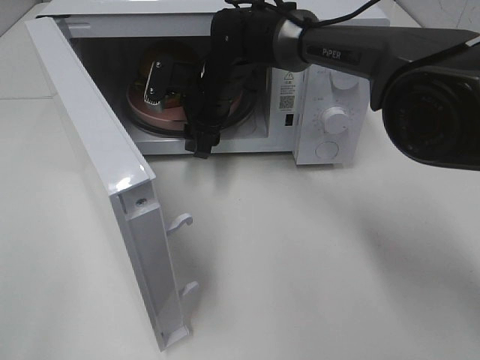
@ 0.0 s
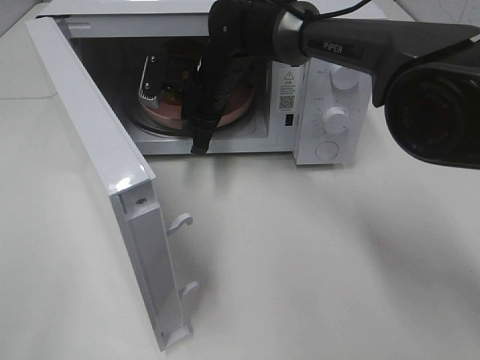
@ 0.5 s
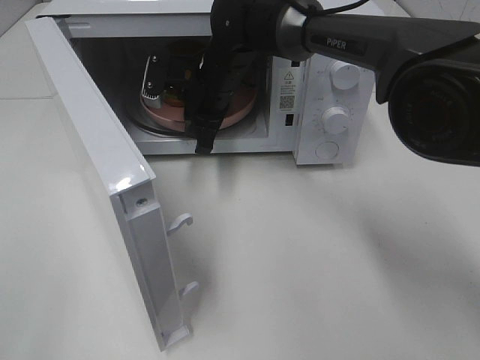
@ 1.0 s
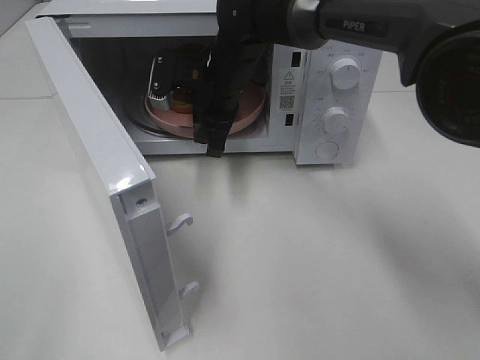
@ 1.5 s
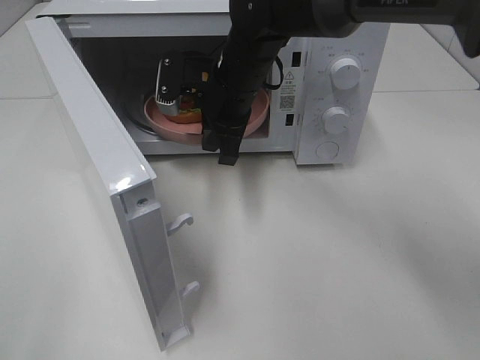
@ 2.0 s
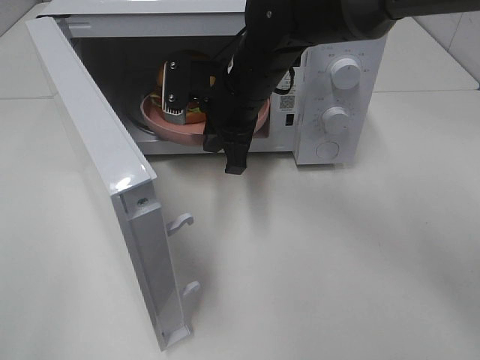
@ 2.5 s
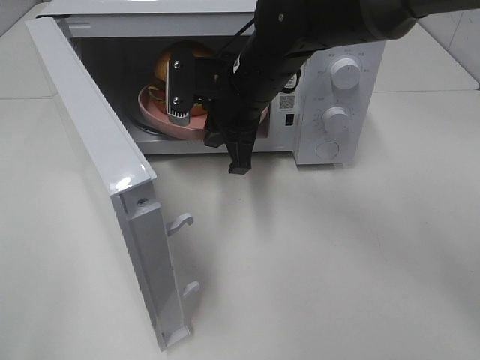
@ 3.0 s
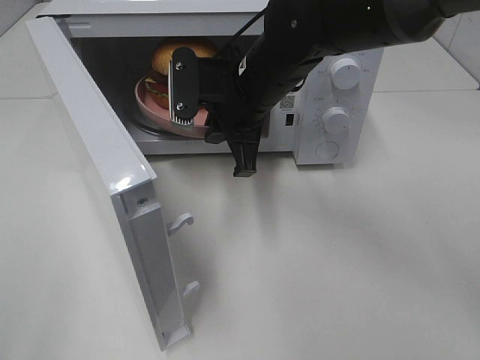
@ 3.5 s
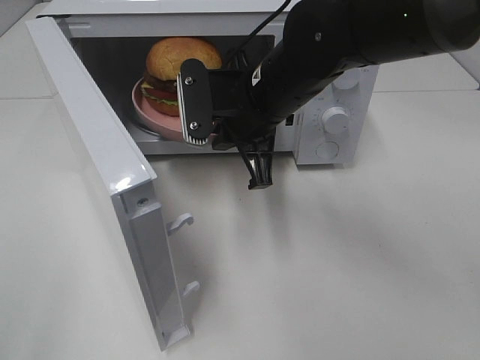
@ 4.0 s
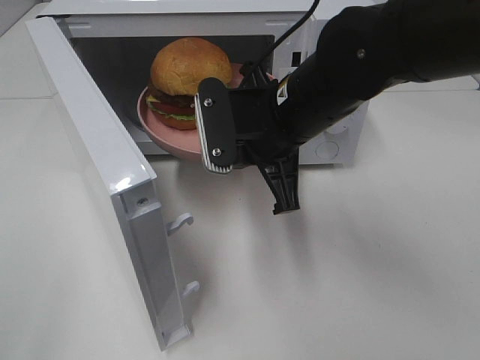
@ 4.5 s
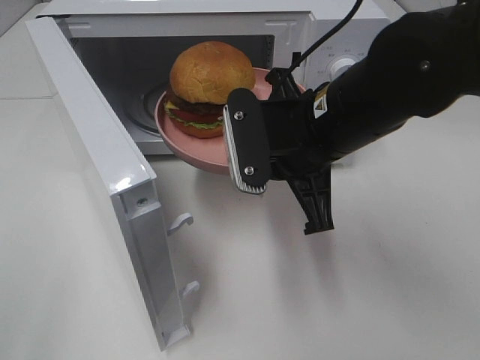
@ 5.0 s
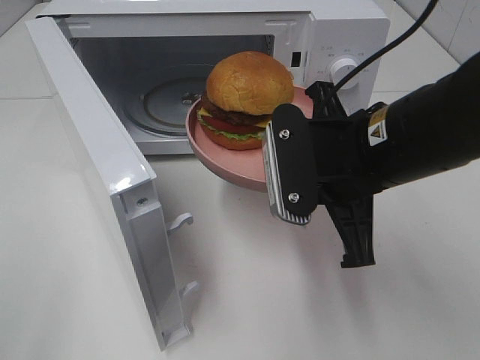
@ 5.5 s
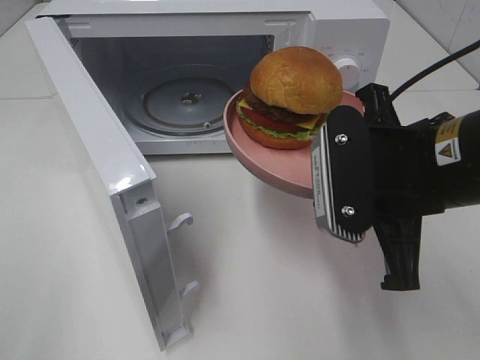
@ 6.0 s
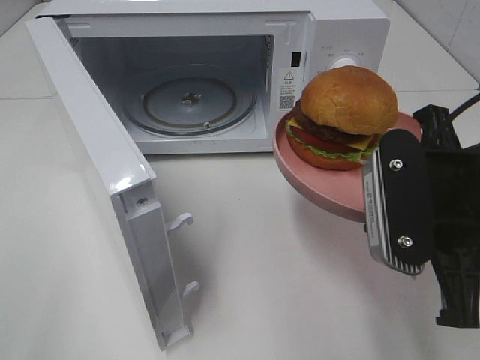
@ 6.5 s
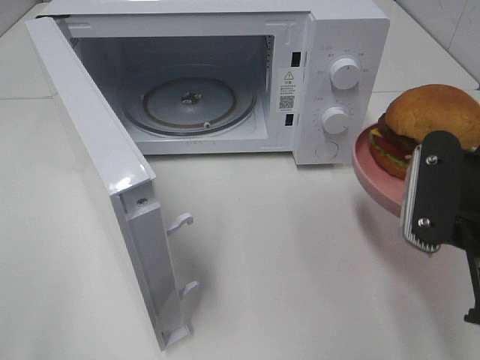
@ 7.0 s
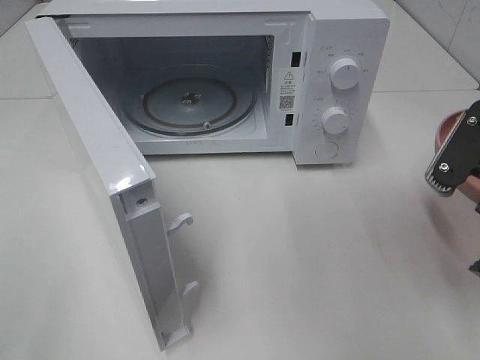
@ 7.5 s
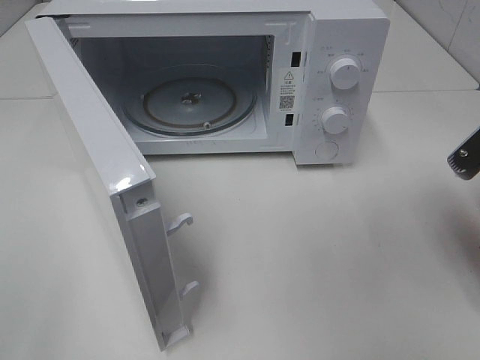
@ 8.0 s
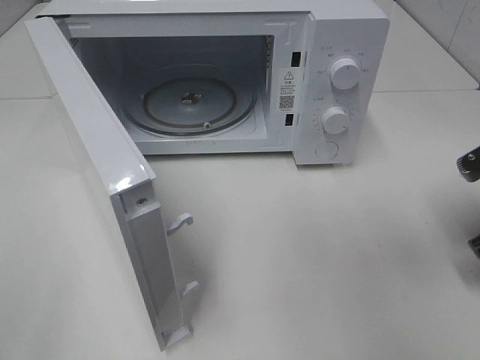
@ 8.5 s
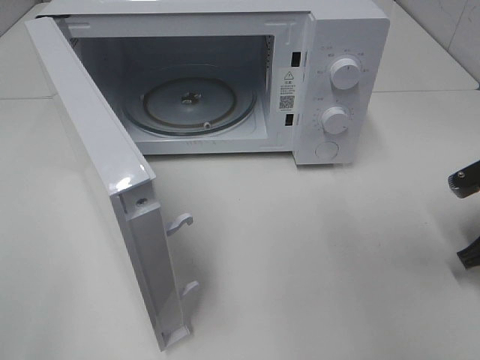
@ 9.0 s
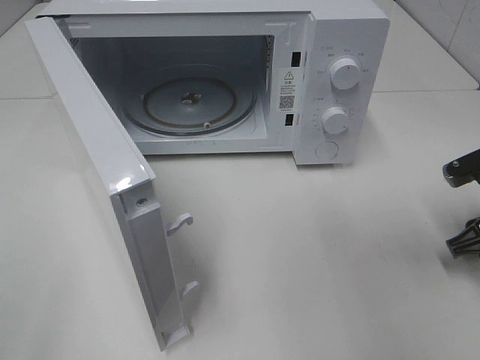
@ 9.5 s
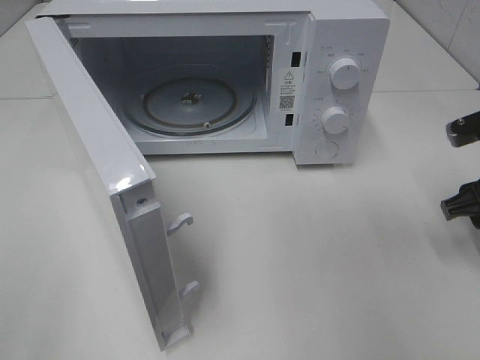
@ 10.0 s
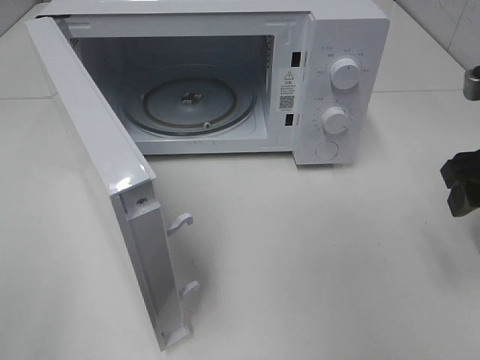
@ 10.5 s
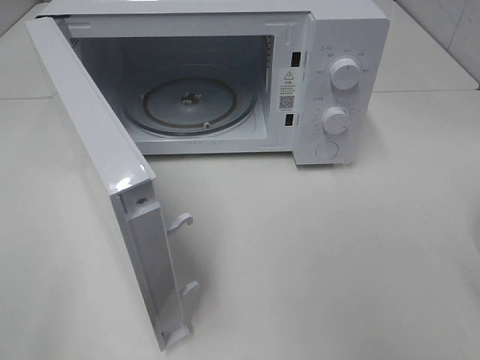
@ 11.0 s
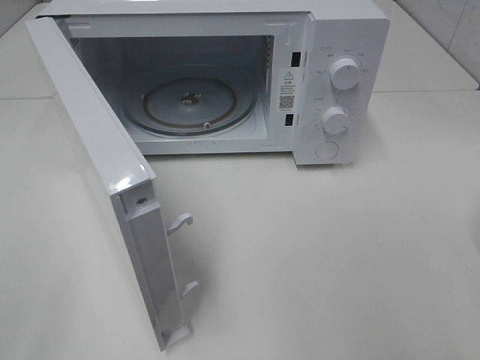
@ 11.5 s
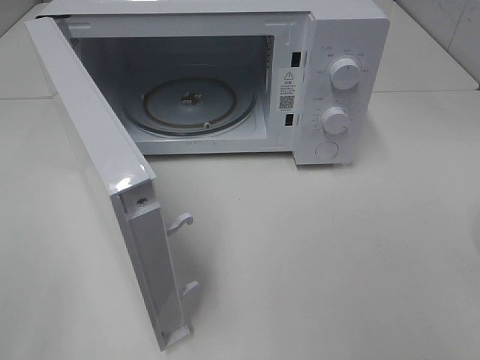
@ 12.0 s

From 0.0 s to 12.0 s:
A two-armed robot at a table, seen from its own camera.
Task of the whole recording: Heat the burger.
Step, from 1.0 s to 9.0 s: Right hand: place the plate on the table.
From 0.0 s to 2.0 s: The right gripper heads backward, covering roughly 5 cm, and closes up.
From 2.0 s to 4.0 s: The right gripper moves backward, approximately 10 cm.
From 4.0 s to 6.0 s: The right gripper travels backward and to the right by some 15 cm.
From 6.0 s to 8.0 s: The right gripper moves to the right, about 15 cm.
From 8.0 s to 10.0 s: The right gripper shifts about 5 cm forward, and opens its fingers.
From 10.0 s to 12.0 s: The right gripper shifts roughly 25 cm backward and upward.

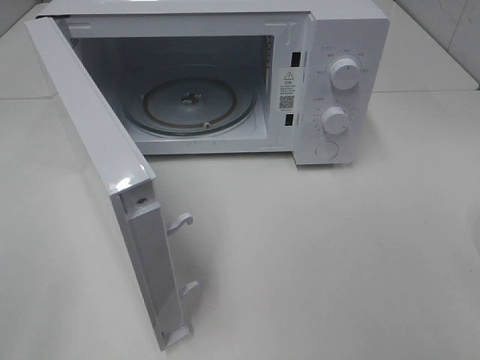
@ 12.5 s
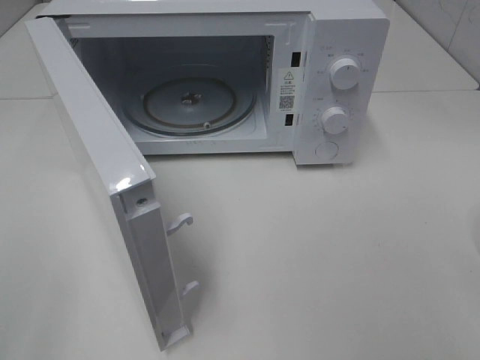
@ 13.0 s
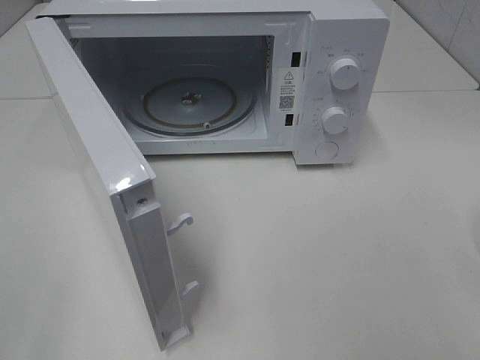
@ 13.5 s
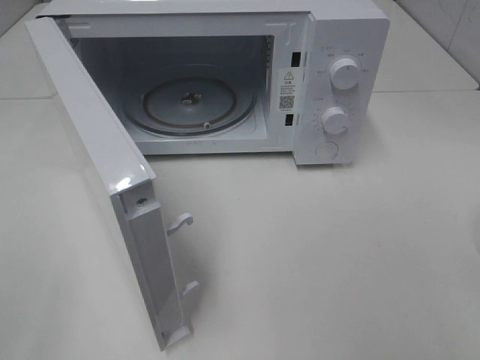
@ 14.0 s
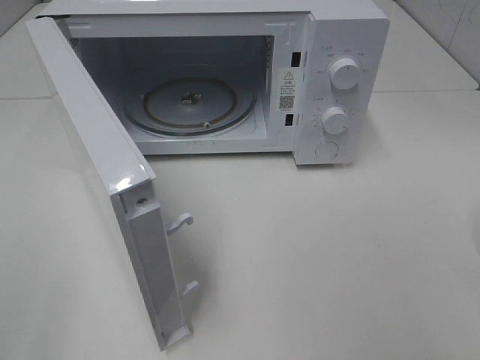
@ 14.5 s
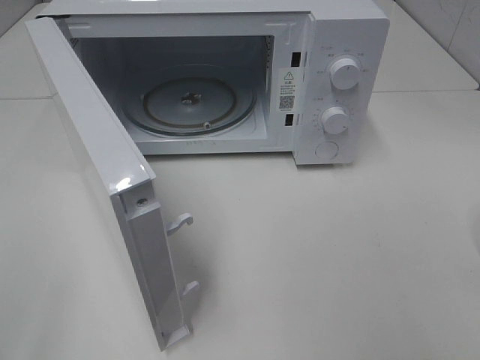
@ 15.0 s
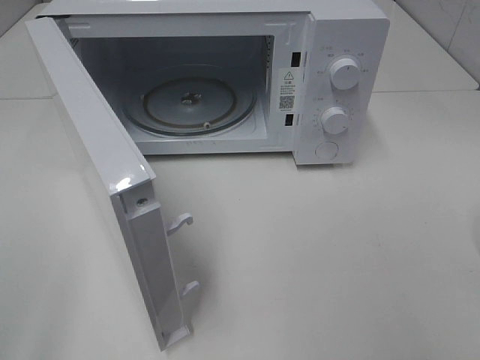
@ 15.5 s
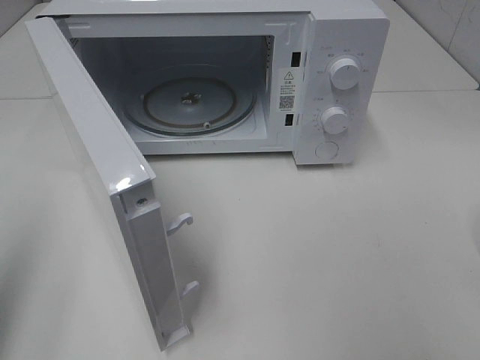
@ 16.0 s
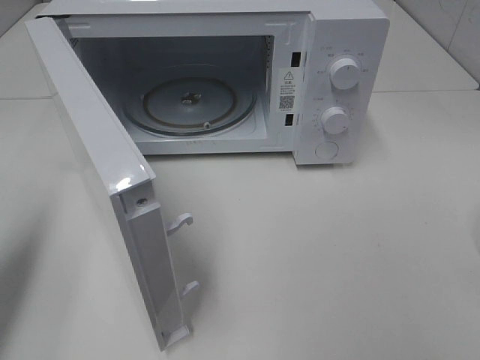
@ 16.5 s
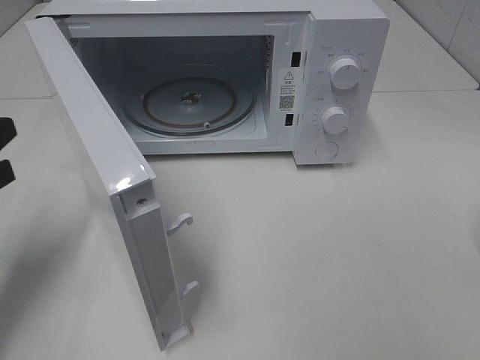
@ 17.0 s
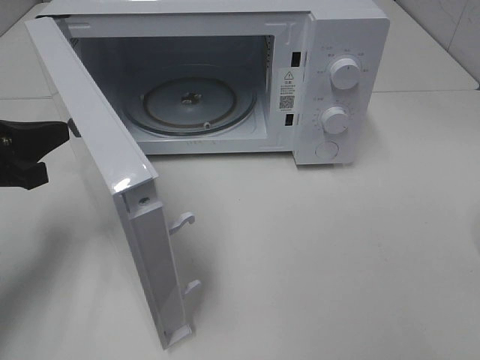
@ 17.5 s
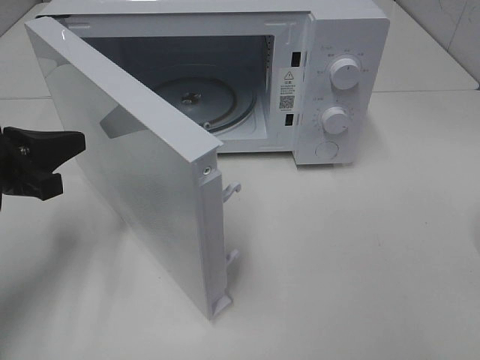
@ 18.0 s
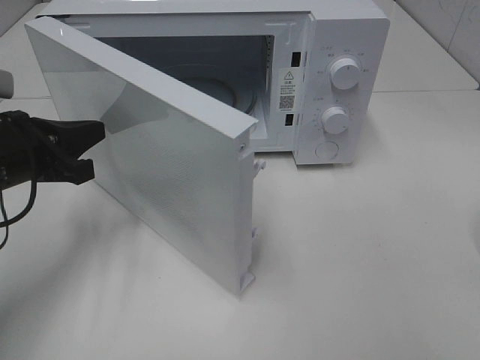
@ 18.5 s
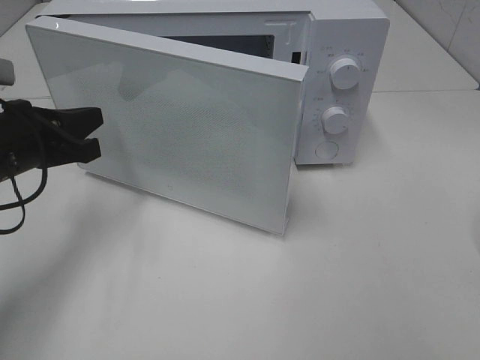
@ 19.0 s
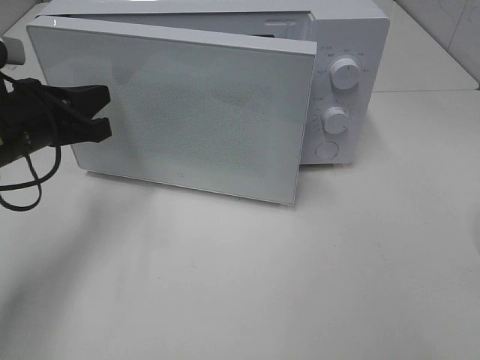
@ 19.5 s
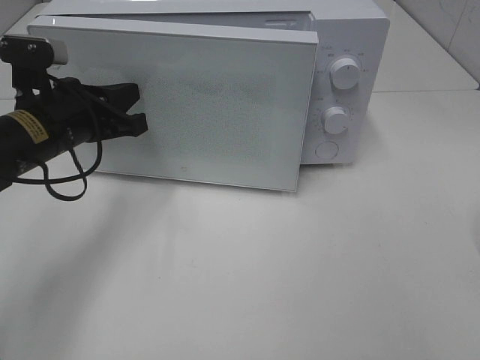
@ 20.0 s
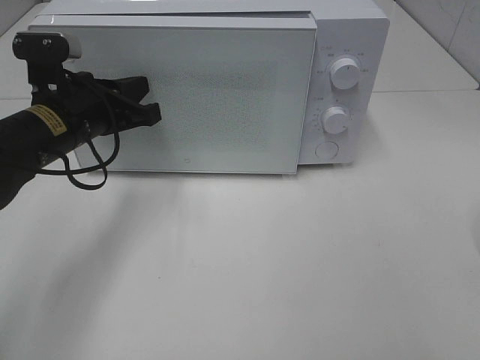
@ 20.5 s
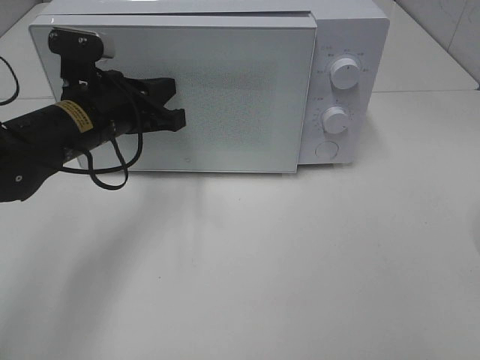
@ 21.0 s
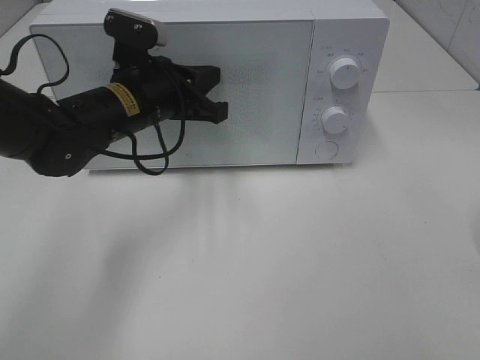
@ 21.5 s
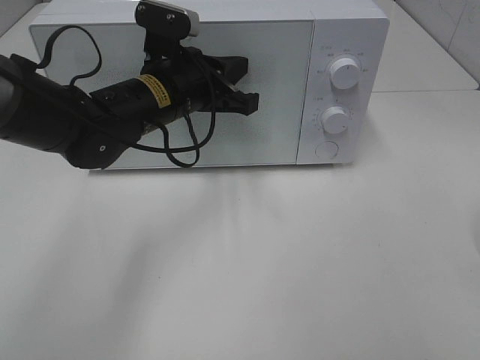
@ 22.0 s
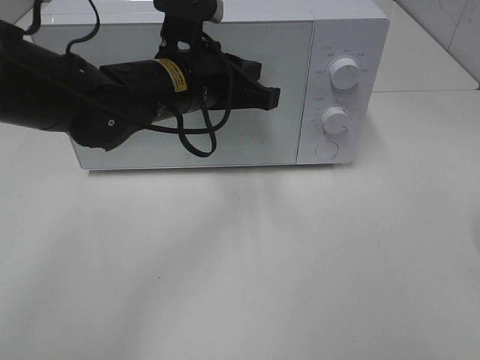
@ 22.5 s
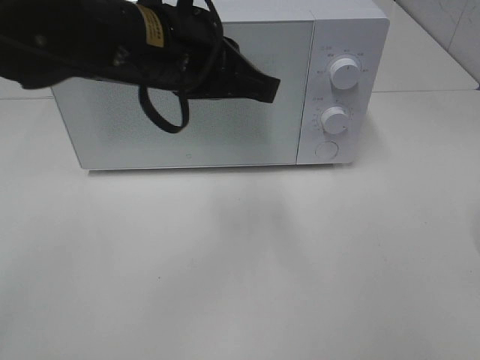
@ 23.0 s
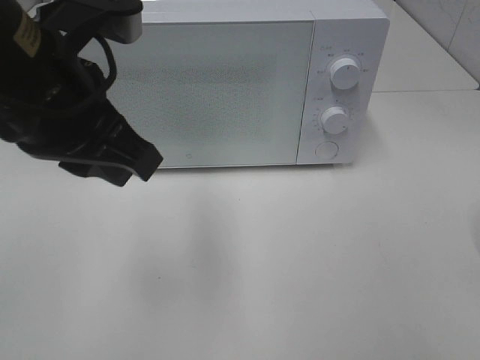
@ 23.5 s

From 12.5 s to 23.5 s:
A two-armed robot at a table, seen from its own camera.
Task of the whole recording: Heat the burger.
Step, from 12.5 s to 21.5 s: Left hand: close the microwave door.
From 14.5 s to 16.0 s: The left gripper heads forward, covering approximately 10 cm, and closes up.
From 16.0 s to 18.0 s: The left gripper shifts approximately 20 cm forward, downward and to the right.
From 18.0 s to 20.0 s: The left gripper is displaced forward and to the right by about 10 cm.
From 20.0 s to 21.5 s: The left gripper shifts approximately 10 cm to the right.
From 21.5 s to 23.5 s: The left gripper goes some 20 cm backward and upward.

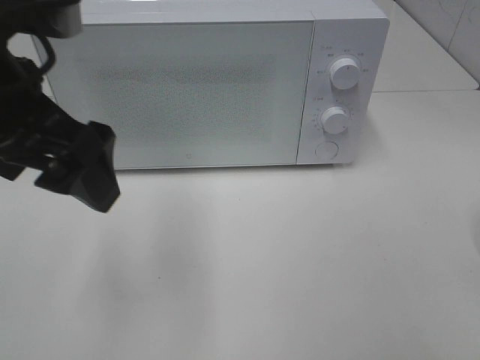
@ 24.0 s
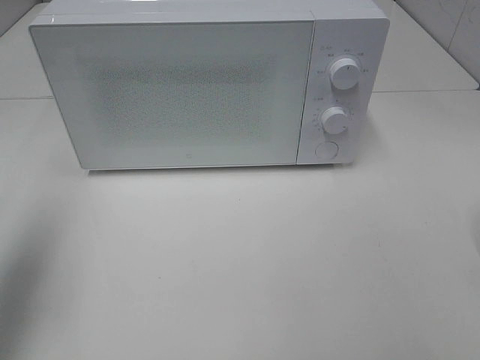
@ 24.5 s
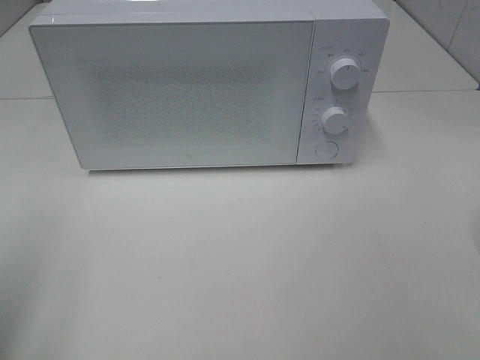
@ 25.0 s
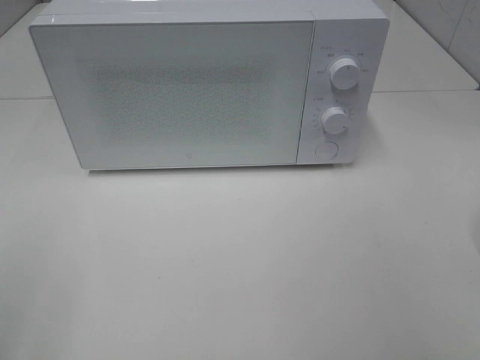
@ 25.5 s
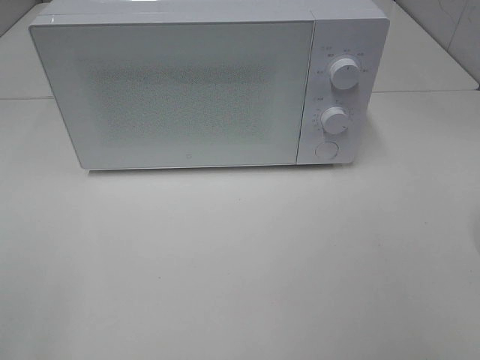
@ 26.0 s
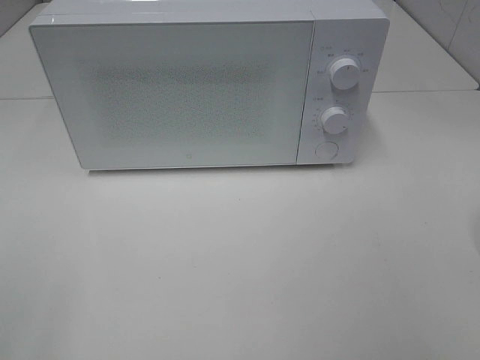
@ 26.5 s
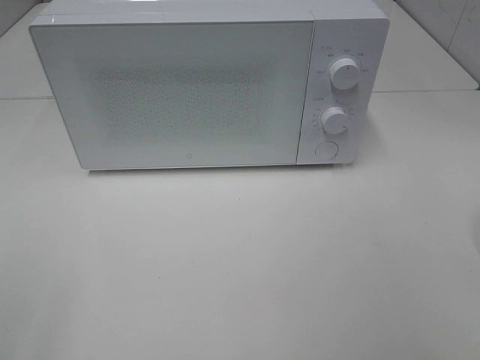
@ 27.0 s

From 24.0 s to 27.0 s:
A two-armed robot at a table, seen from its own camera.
Task of the whole recording: Heat the burger.
From 24.0 s to 25.5 s: The left gripper travels backward and to the left by approximately 25 cm.
